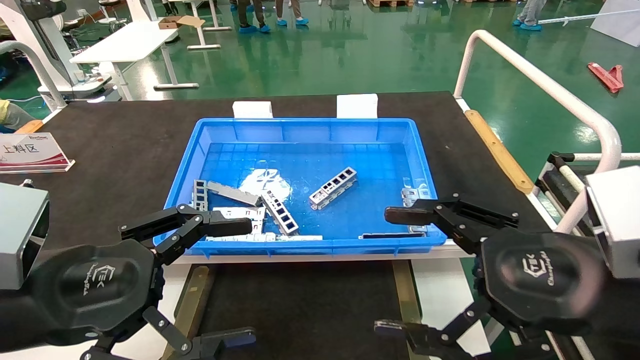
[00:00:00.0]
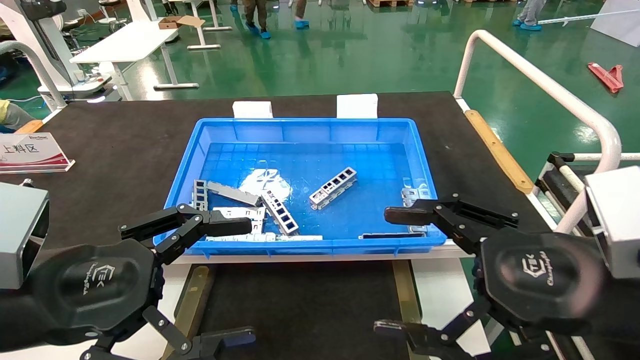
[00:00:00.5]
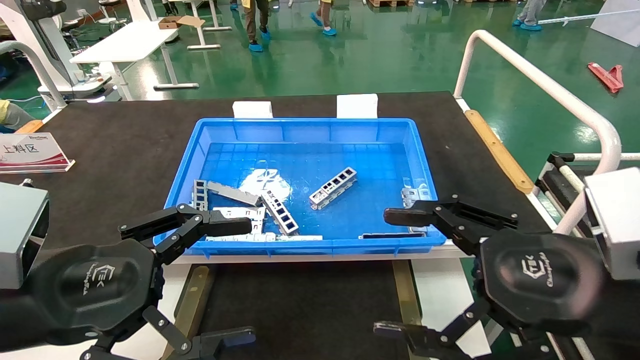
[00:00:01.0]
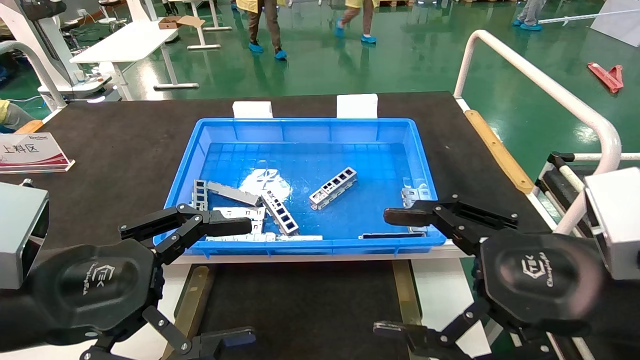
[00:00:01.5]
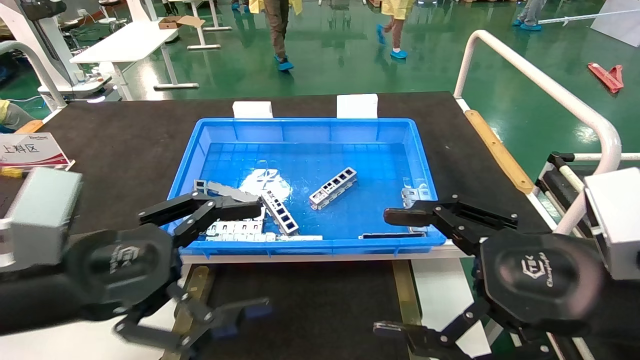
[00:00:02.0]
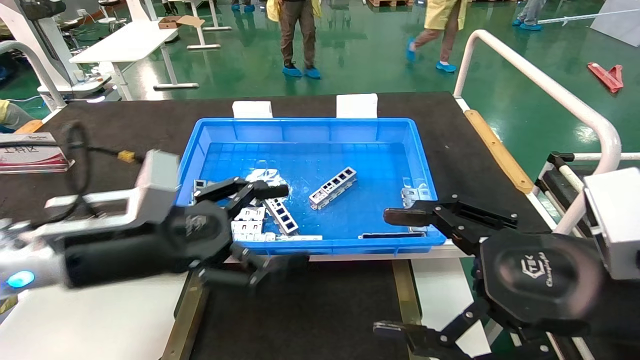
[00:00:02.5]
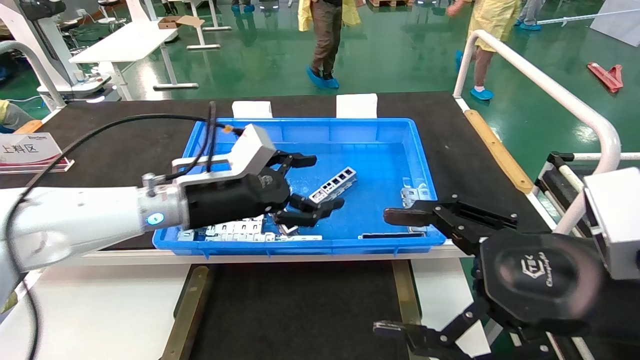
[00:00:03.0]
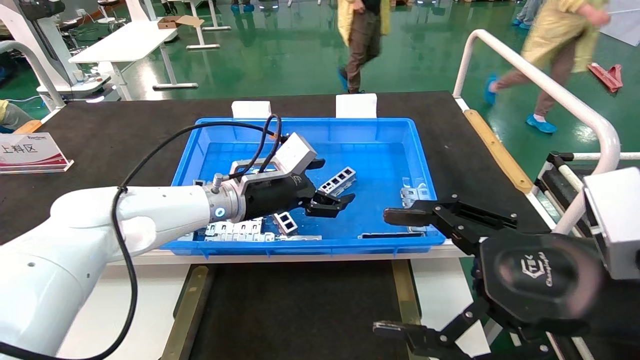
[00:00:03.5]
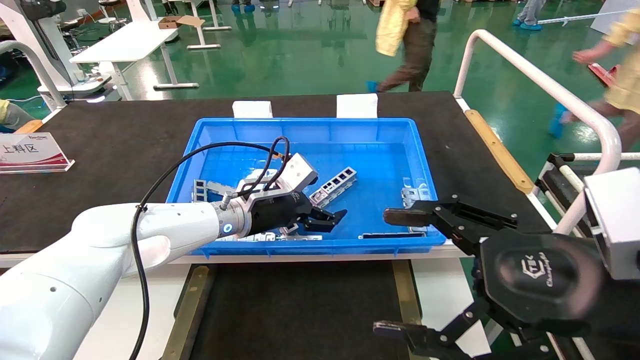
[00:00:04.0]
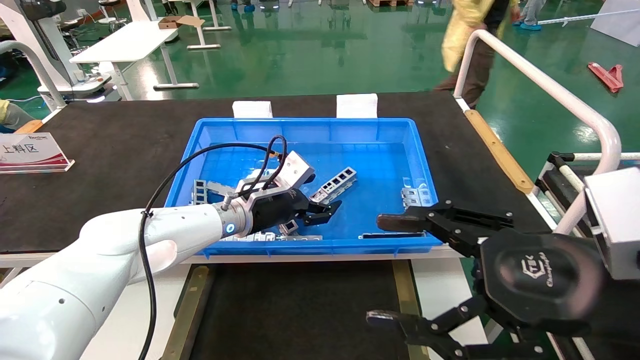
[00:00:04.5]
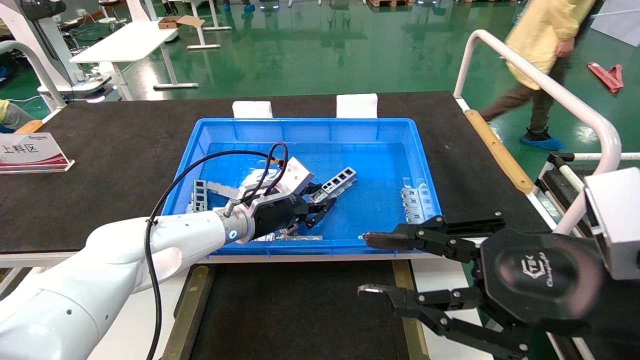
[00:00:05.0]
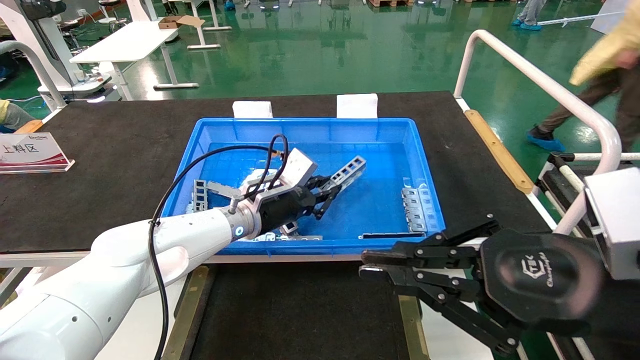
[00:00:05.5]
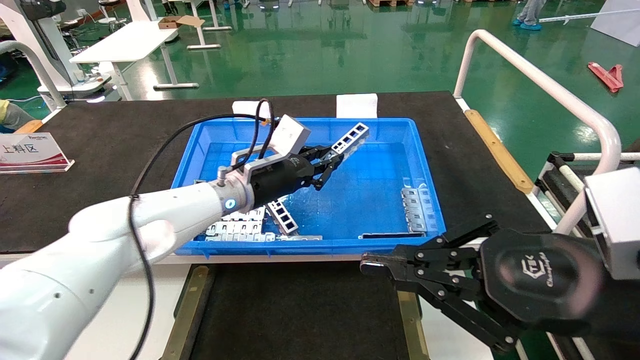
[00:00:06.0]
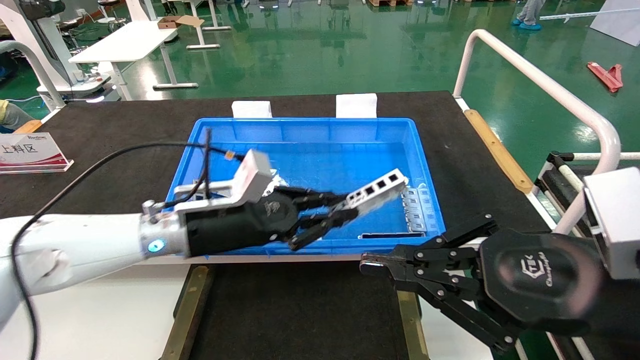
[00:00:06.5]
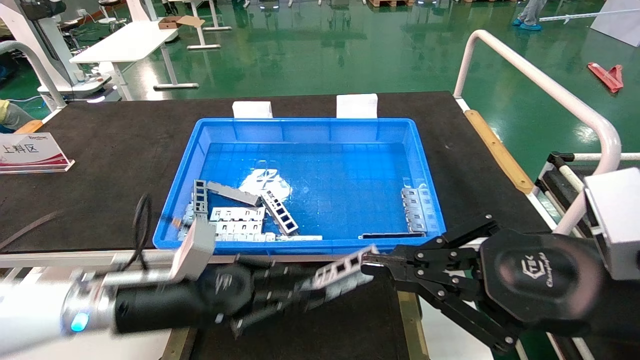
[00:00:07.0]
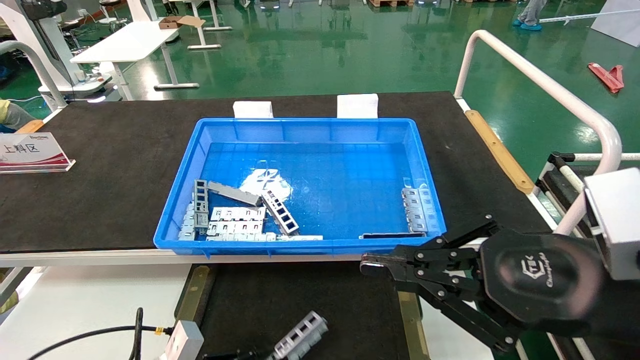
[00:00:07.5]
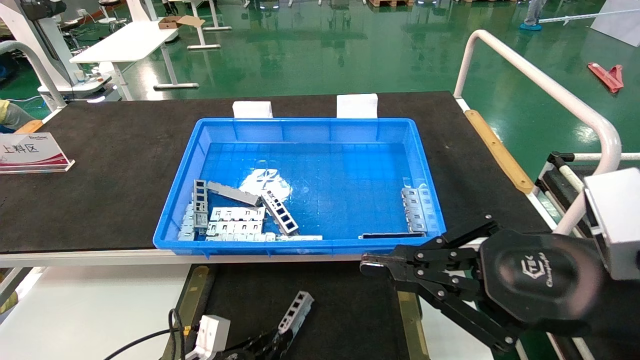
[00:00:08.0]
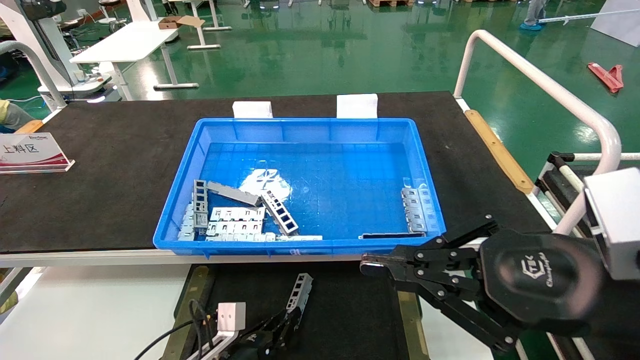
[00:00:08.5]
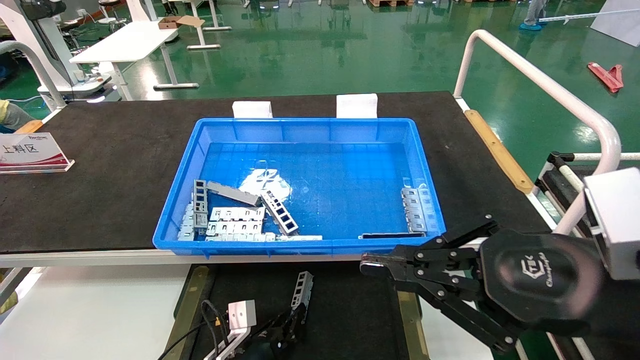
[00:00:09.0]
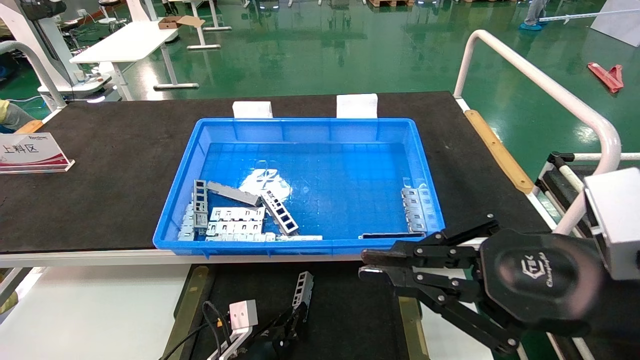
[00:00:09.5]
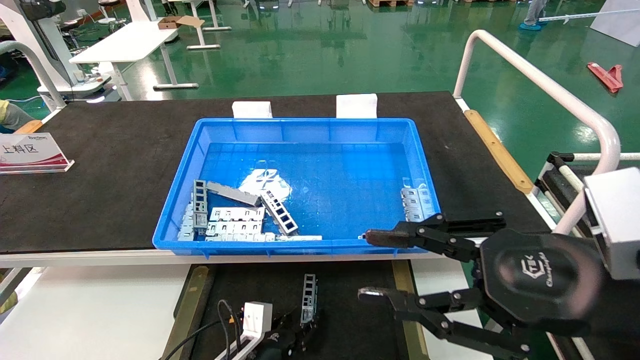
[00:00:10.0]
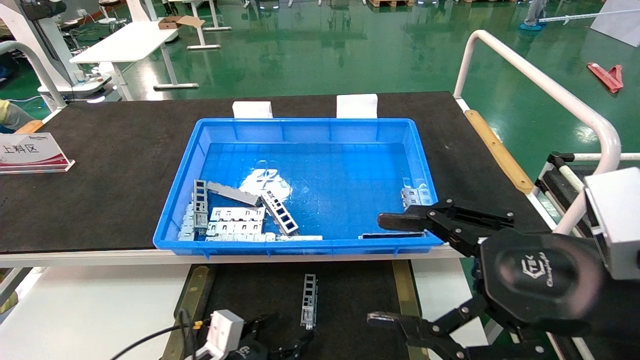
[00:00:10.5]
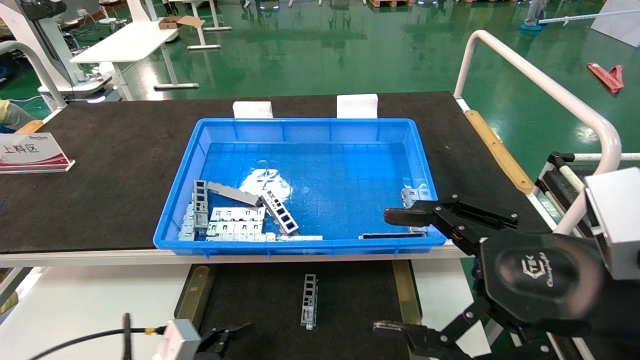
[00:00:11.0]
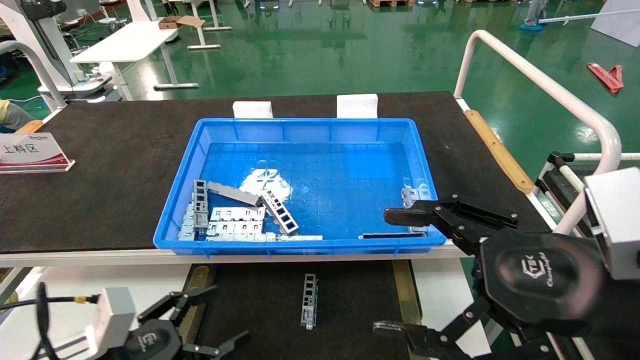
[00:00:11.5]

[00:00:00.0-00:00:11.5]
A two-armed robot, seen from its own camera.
Task of the whole recording: Grasp the part with one hand and place it on the black container.
Step, 00:00:02.0 to 00:00:05.0: Pick up the front USB bracket from the feeding area.
Step, 00:00:05.5 to 00:00:09.5: Place the front USB bracket into the box.
00:00:00.0 to 00:00:02.0: The grippers move only a little.
00:00:02.0 to 00:00:04.0: The left gripper heads forward and to the right, covering some 30 cm.
00:00:04.0 to 00:00:06.0: The left gripper closes its fingers; the right gripper closes its fingers.
00:00:06.0 to 00:00:07.5: The left gripper moves downward, backward and to the left, about 30 cm.
00:00:07.5 to 00:00:09.5: The left gripper heads to the right, forward and downward, covering approximately 15 cm.
00:00:09.5 to 00:00:11.5: The right gripper opens up. Meanwhile the left gripper travels upward, to the left and backward by approximately 25 cm, and opens.
